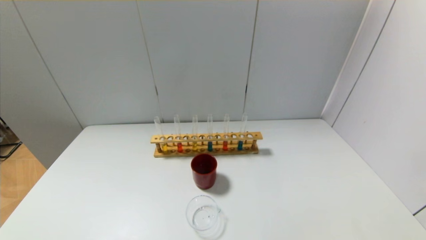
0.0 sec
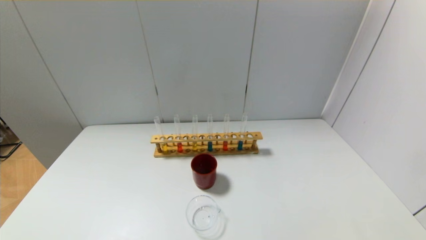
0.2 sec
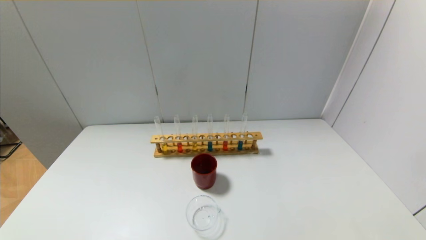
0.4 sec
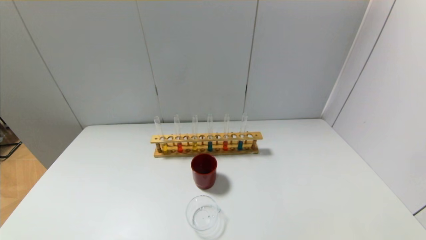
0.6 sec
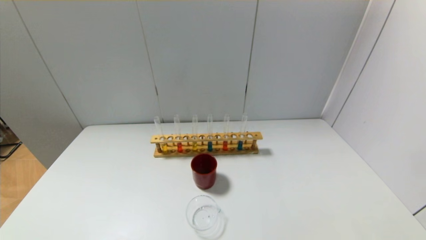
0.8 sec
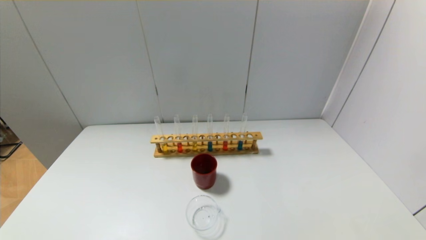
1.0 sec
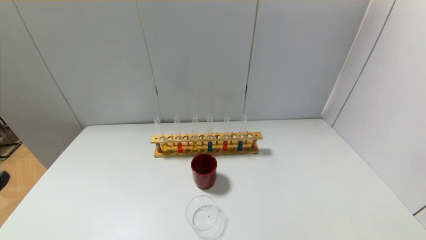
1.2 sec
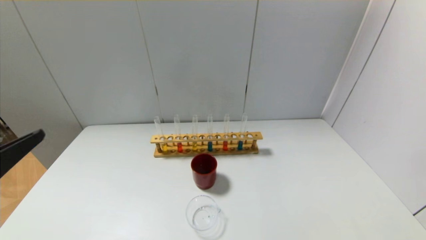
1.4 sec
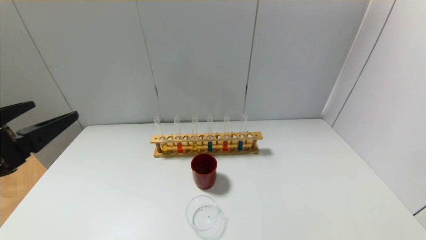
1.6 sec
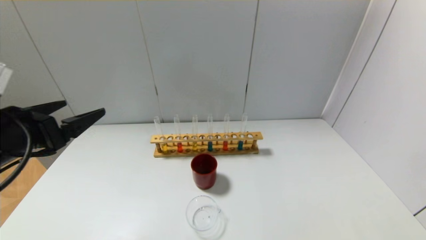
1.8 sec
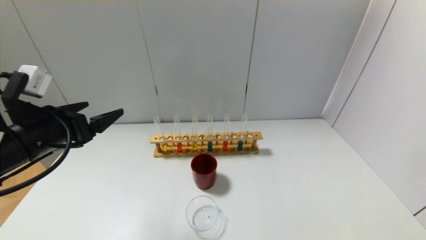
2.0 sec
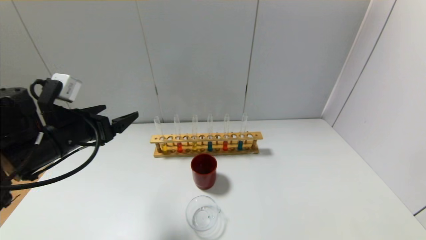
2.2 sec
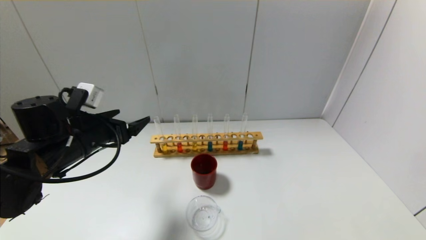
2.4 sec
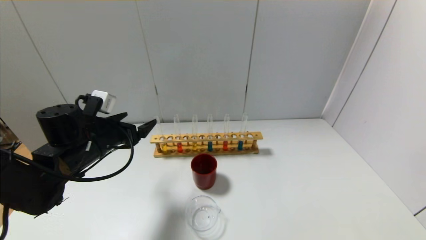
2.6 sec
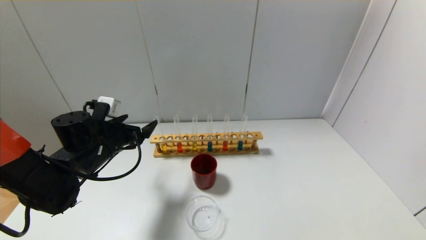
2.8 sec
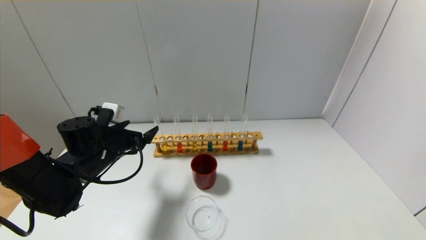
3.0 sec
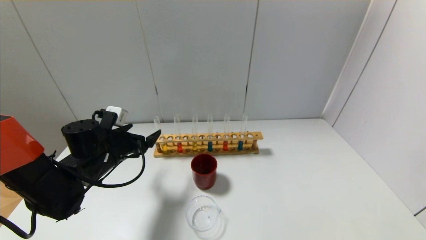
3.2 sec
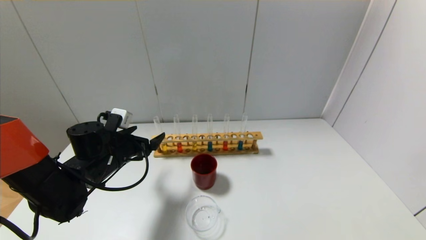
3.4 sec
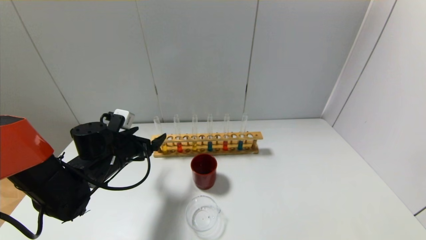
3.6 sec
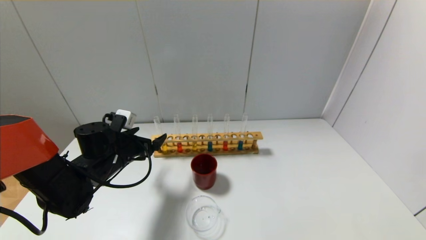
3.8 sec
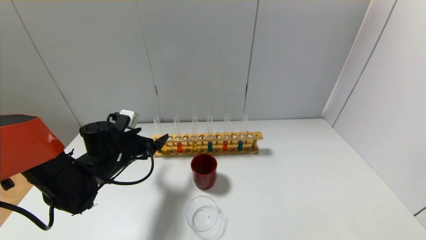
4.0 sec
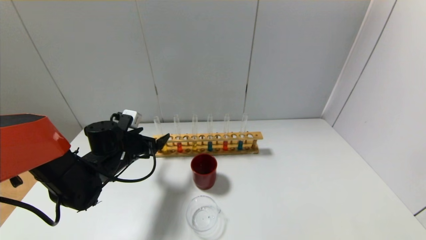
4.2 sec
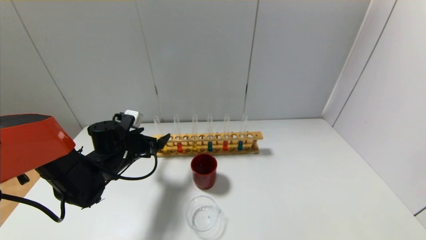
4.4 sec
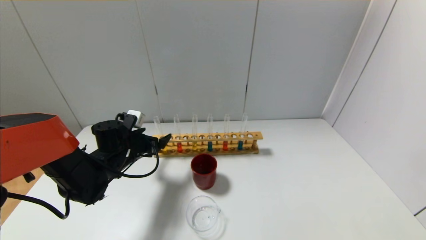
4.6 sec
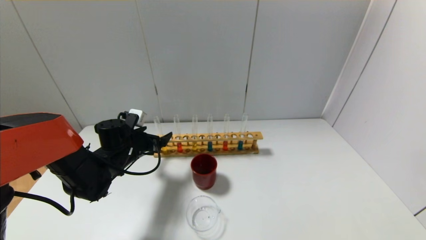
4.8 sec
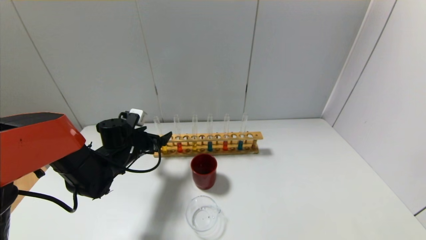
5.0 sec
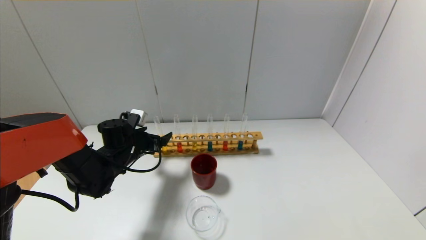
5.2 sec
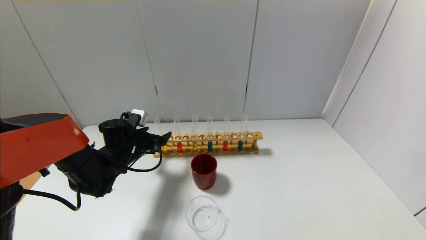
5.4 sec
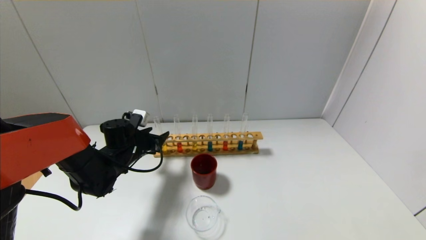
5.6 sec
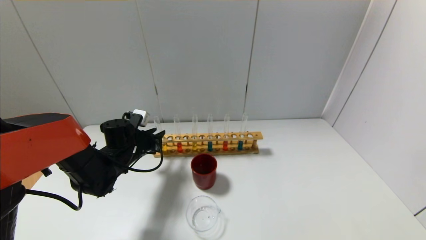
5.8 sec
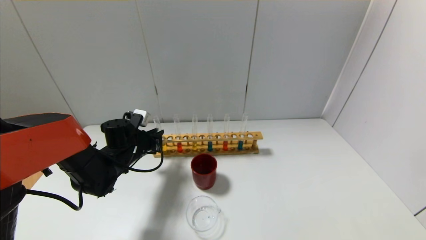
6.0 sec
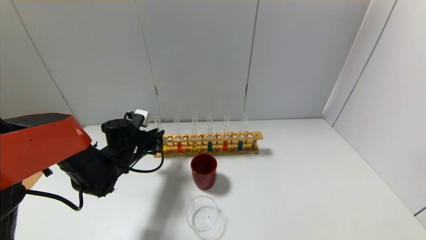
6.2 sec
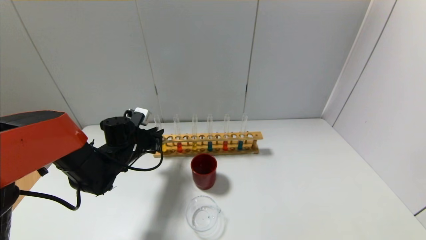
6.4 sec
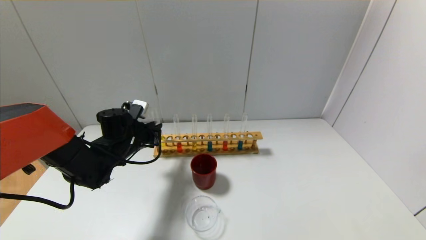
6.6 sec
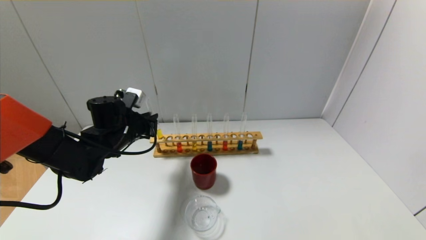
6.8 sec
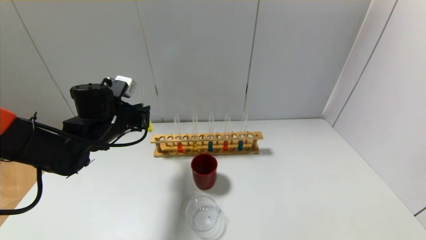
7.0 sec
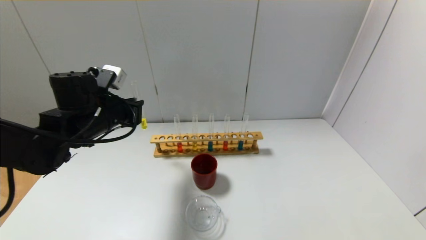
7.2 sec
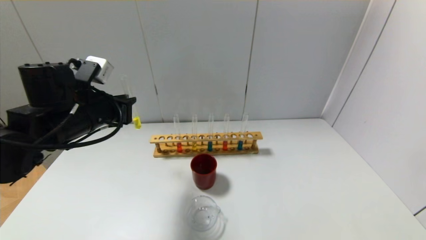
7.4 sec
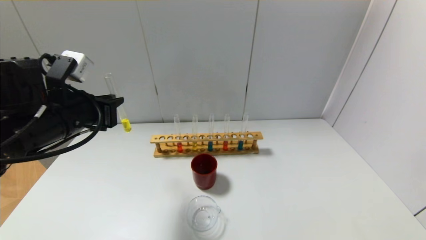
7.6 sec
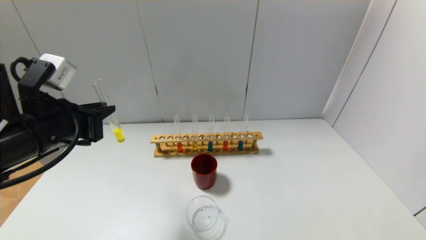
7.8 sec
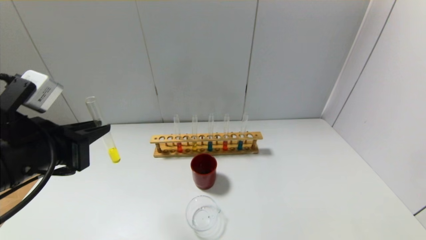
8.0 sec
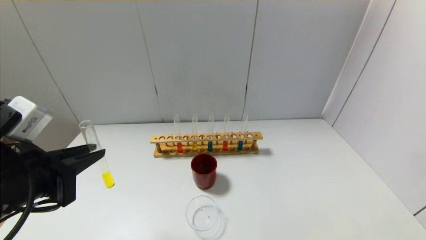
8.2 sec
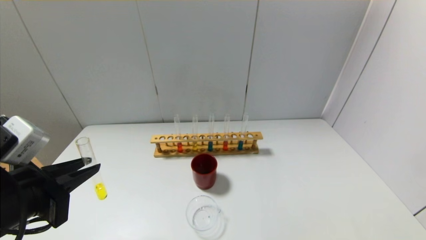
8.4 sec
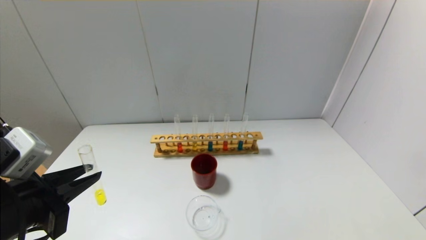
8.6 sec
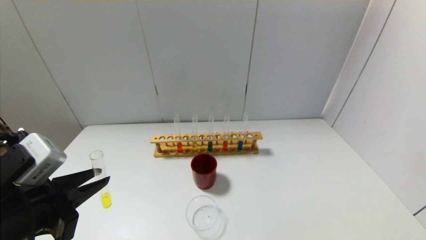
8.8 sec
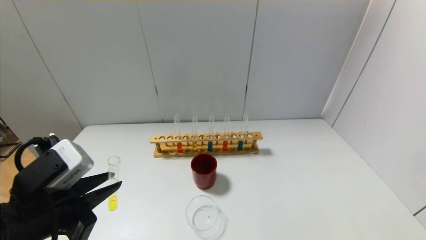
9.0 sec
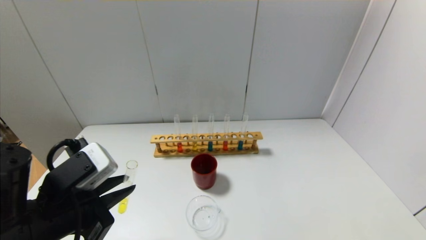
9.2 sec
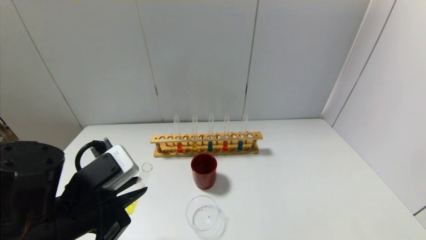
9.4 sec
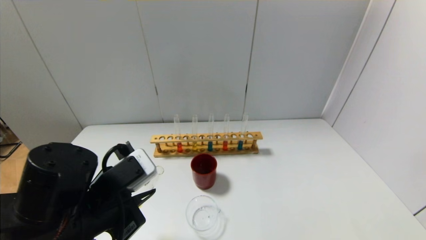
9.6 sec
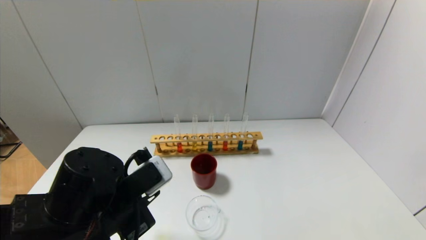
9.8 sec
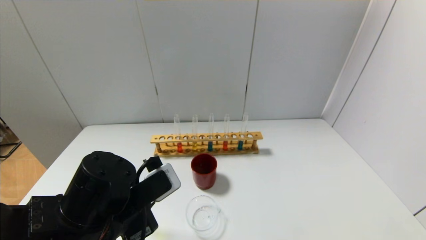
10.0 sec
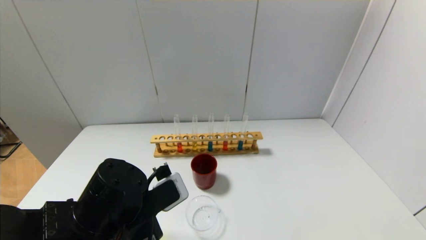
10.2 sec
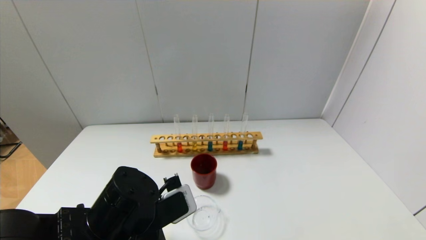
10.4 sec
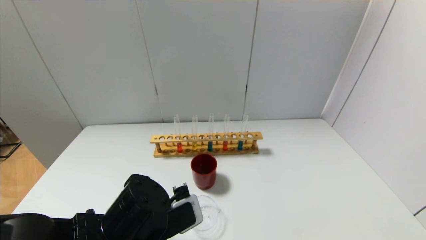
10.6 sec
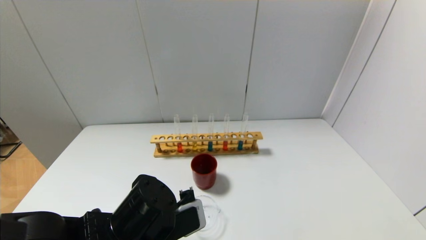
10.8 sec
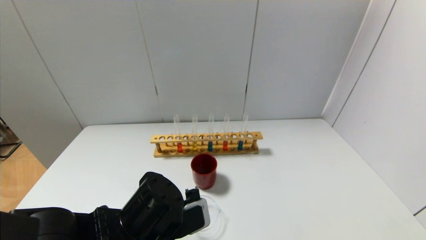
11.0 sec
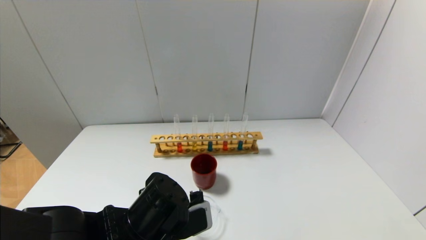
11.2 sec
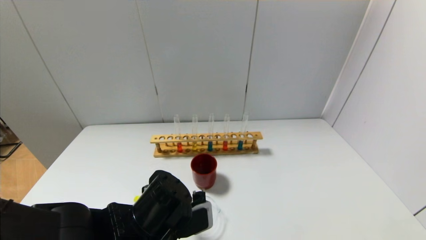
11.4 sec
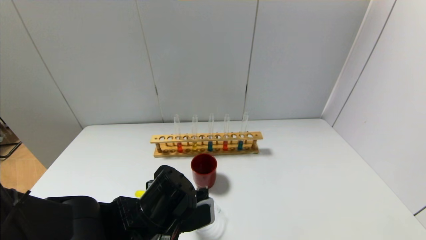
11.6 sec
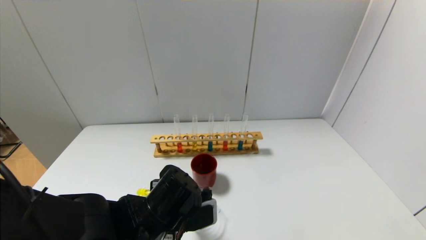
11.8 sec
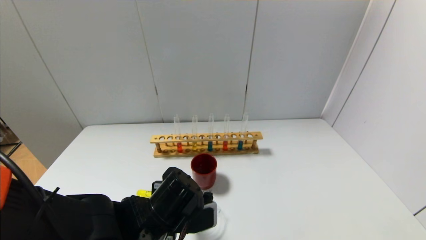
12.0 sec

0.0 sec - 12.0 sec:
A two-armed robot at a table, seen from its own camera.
Step, 0.0 sec - 6.2 sec: Grasp the yellow reagent with the left gripper.
0.0 sec - 1.6 sec: The left gripper goes about 25 cm upward and forward.
1.6 sec - 3.0 sec: The left gripper moves forward and downward, about 25 cm.
3.0 sec - 4.4 sec: The grippers stay close to where they were, moving slightly.
4.4 sec - 6.0 sec: The left gripper closes its fingers.
6.0 sec - 7.6 sec: The left gripper goes about 20 cm upward and backward.
7.6 sec - 9.0 sec: The left gripper moves backward and downward, approximately 15 cm.
9.0 sec - 10.4 sec: The left gripper heads to the right and downward, covering some 10 cm.
10.4 sec - 12.0 sec: The left gripper moves approximately 5 cm.

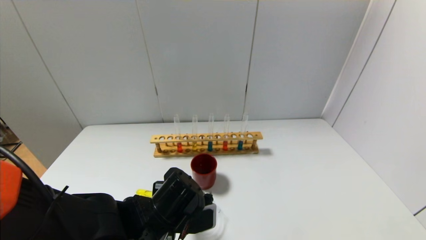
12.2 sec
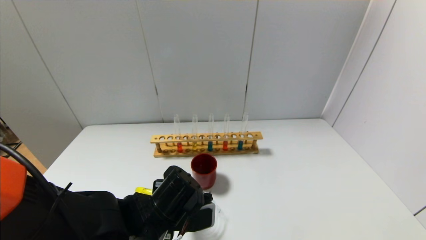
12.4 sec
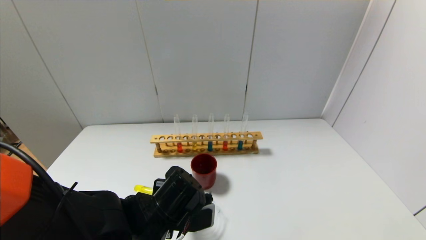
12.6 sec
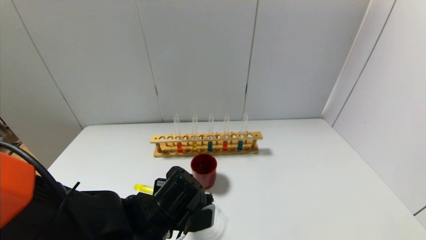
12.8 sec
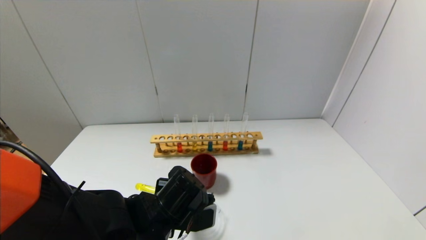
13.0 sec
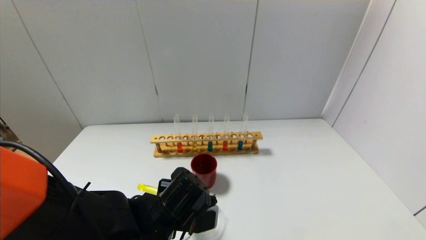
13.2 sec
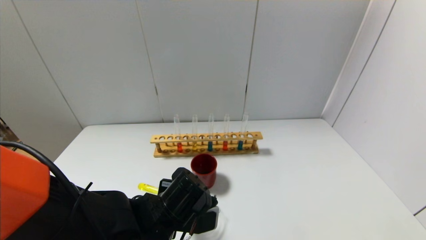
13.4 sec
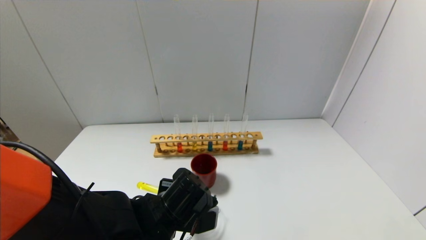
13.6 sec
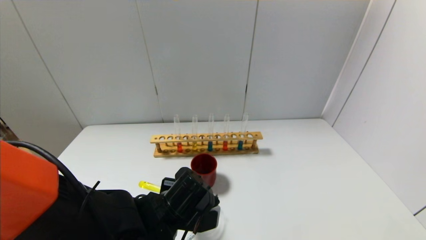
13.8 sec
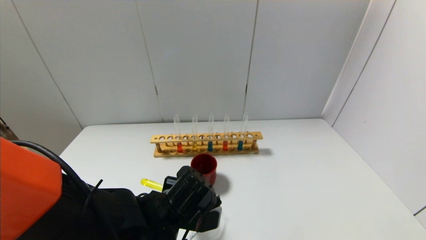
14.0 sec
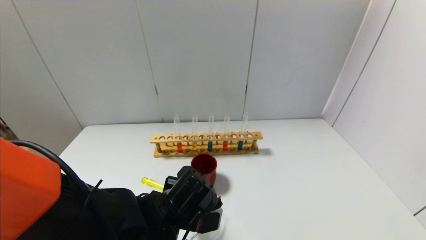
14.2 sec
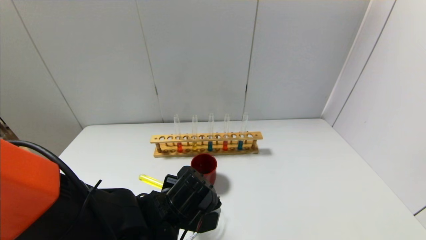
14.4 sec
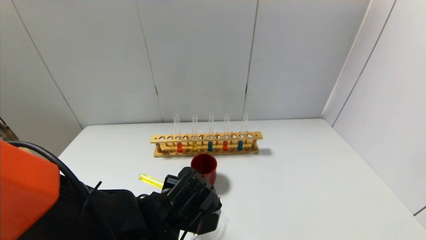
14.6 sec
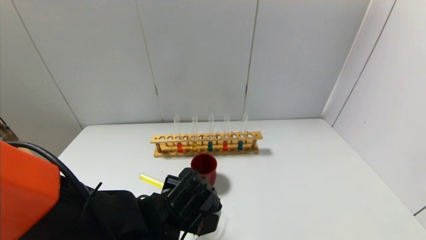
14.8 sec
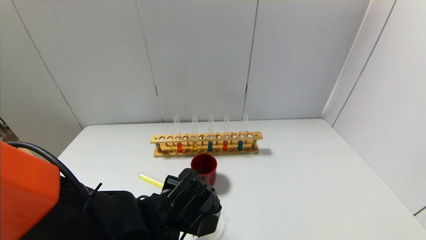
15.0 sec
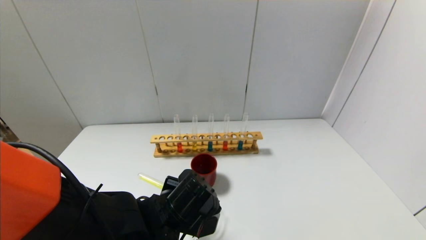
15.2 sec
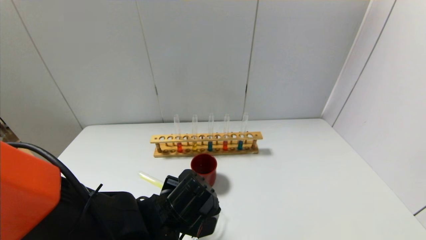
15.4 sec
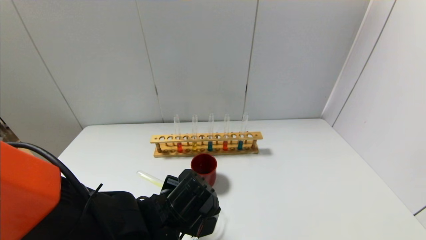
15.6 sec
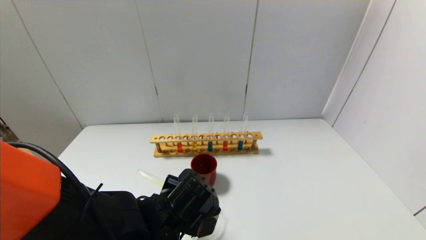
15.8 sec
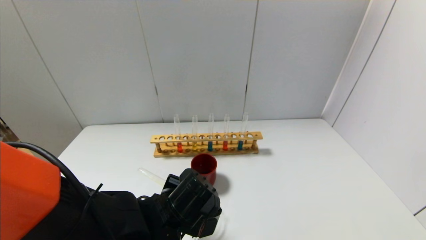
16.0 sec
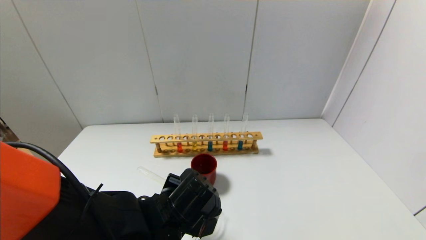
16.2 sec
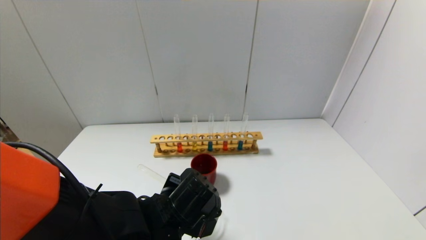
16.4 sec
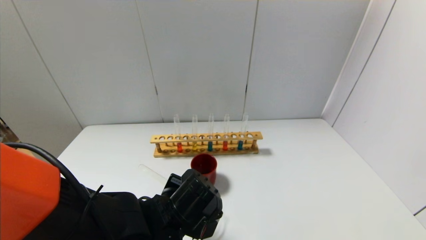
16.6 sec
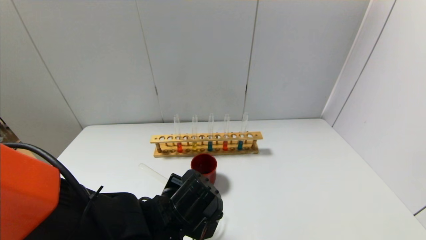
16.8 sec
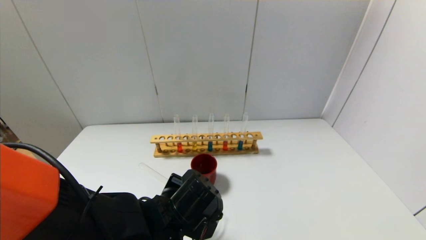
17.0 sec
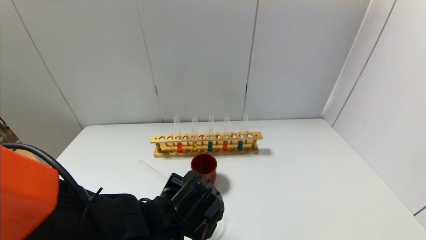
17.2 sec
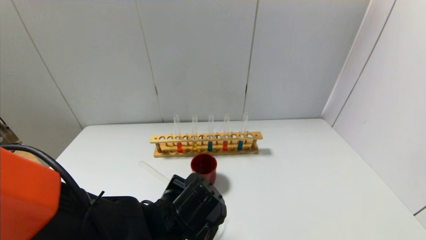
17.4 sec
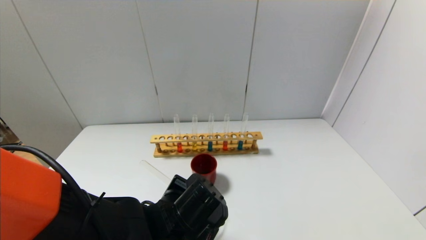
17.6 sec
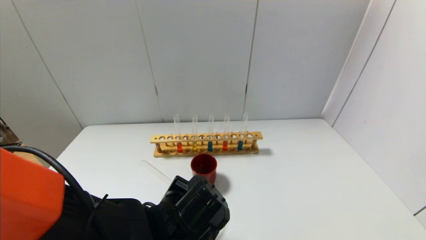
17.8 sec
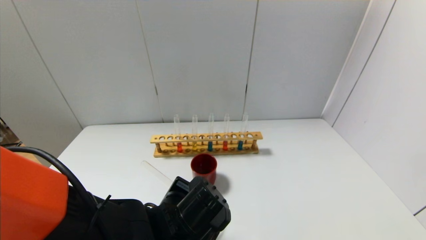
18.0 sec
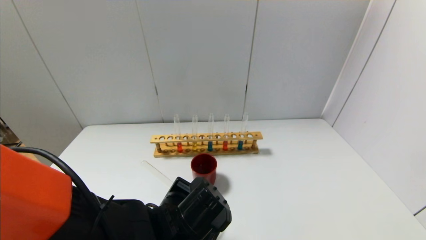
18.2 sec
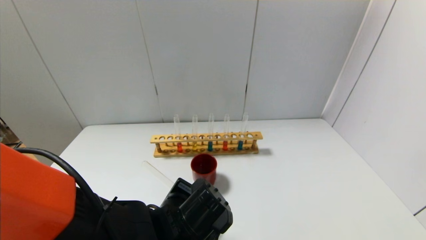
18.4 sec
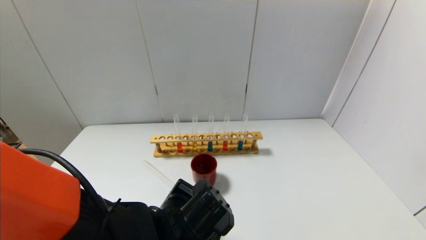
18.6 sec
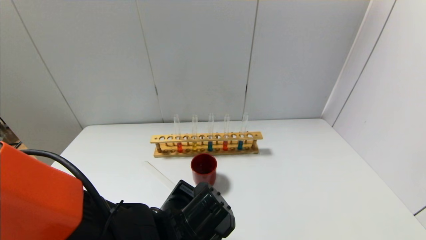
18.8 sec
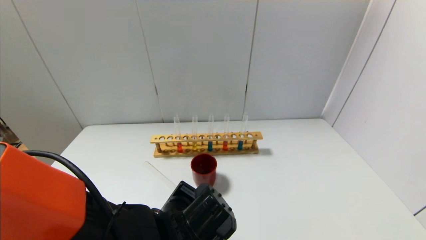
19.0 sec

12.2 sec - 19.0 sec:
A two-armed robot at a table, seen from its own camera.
12.2 sec - 15.0 sec: The grippers make only small movements.
16.2 sec - 19.0 sec: There are only small adjustments of the grippers.
